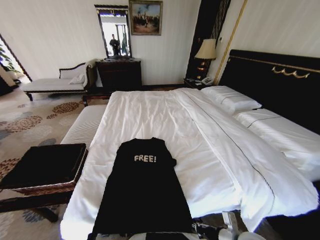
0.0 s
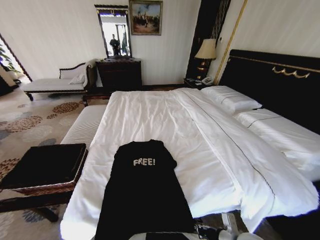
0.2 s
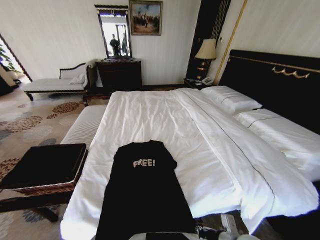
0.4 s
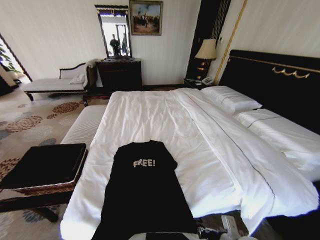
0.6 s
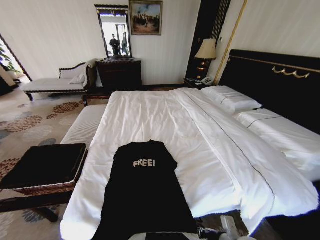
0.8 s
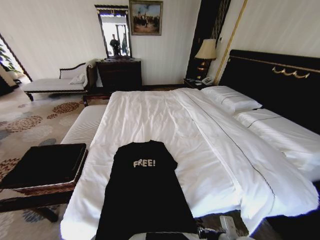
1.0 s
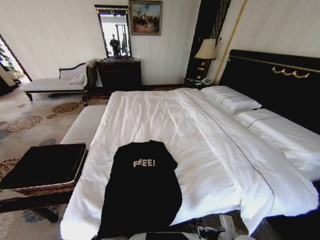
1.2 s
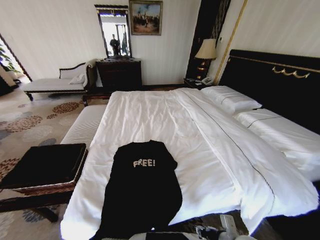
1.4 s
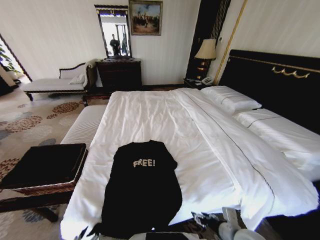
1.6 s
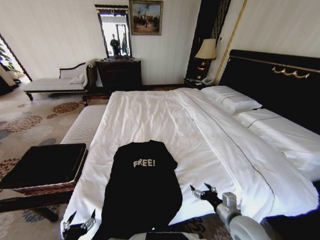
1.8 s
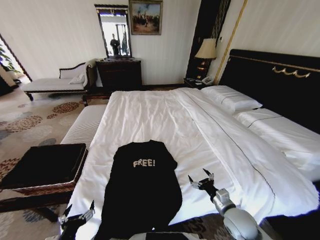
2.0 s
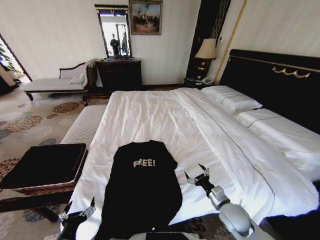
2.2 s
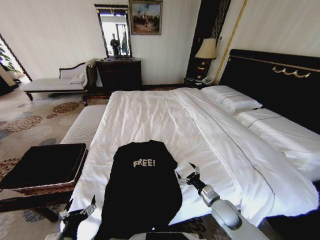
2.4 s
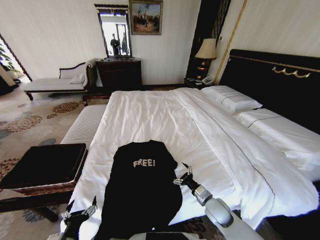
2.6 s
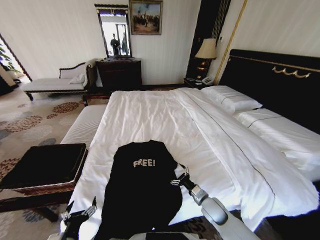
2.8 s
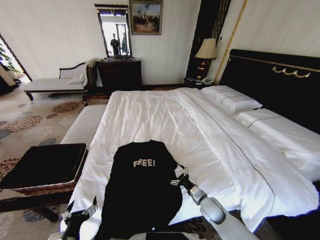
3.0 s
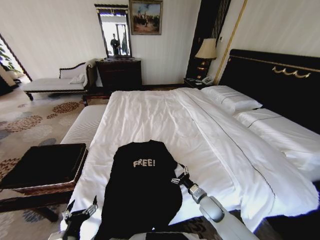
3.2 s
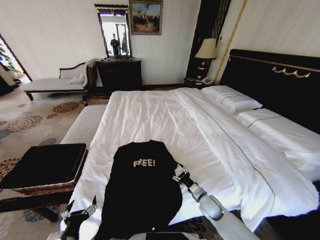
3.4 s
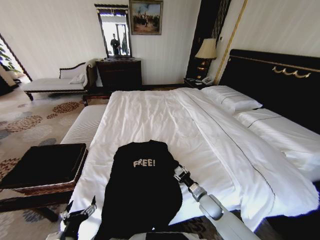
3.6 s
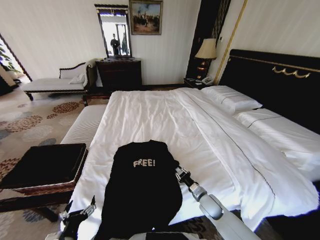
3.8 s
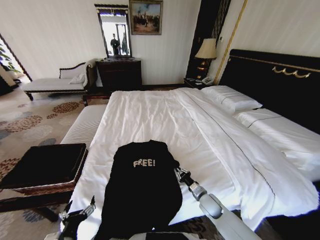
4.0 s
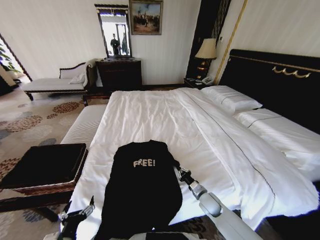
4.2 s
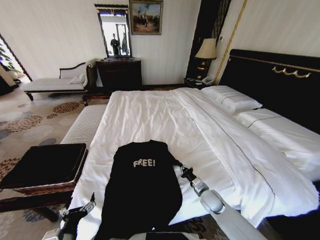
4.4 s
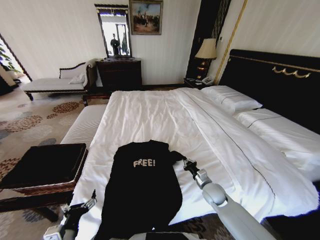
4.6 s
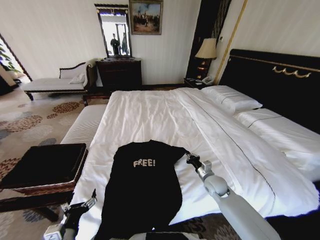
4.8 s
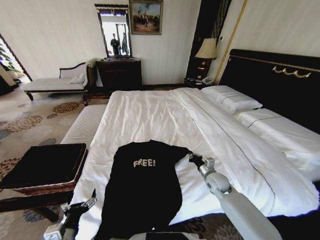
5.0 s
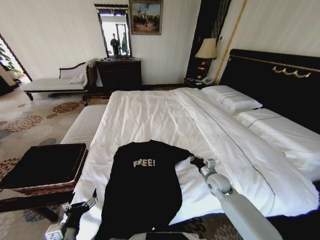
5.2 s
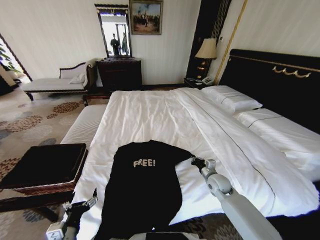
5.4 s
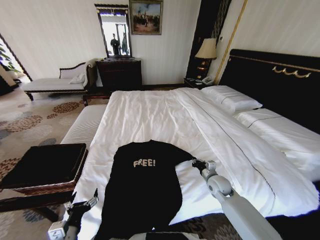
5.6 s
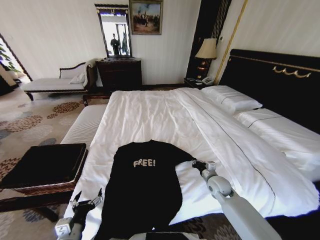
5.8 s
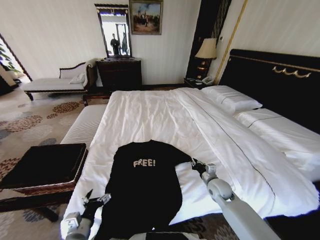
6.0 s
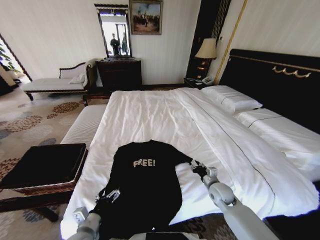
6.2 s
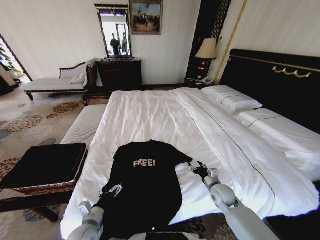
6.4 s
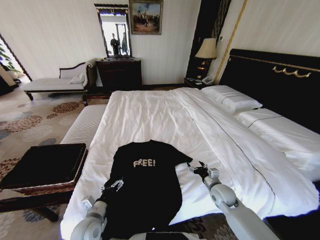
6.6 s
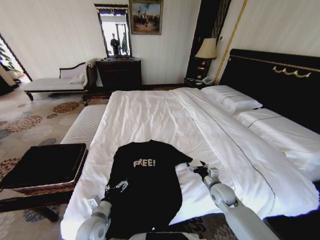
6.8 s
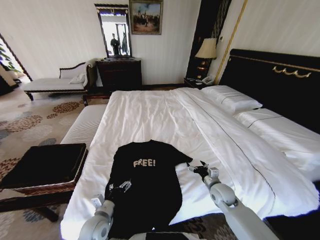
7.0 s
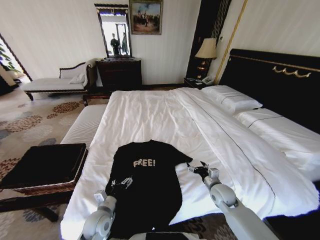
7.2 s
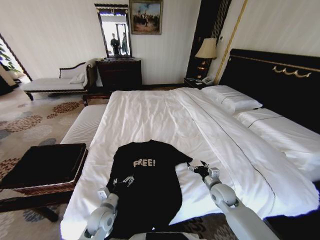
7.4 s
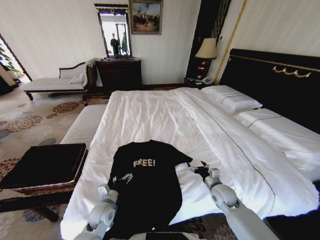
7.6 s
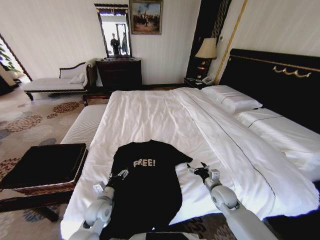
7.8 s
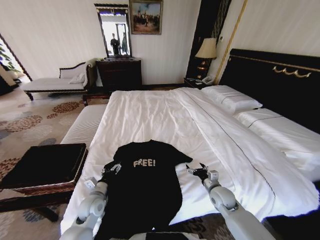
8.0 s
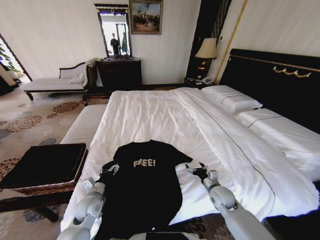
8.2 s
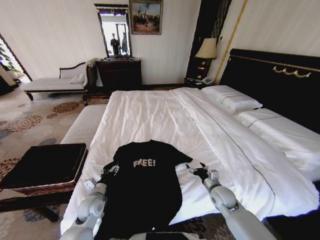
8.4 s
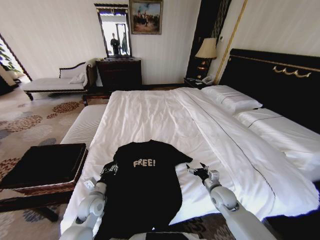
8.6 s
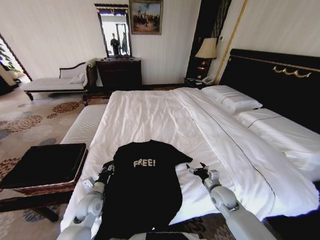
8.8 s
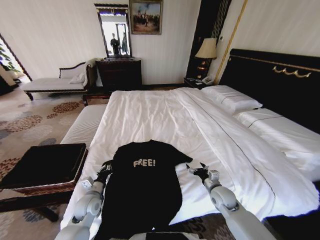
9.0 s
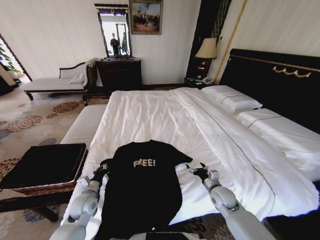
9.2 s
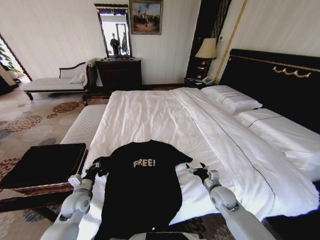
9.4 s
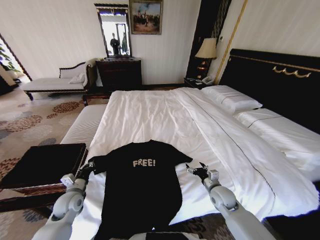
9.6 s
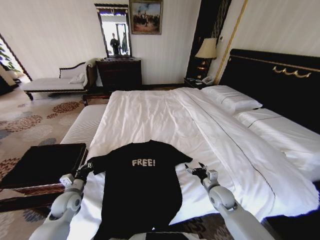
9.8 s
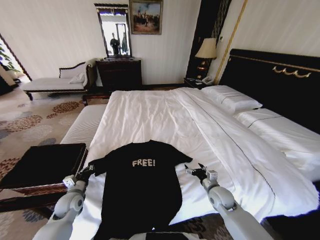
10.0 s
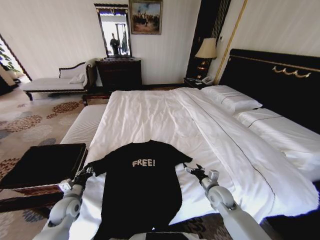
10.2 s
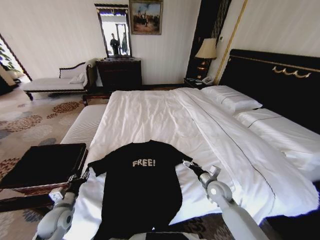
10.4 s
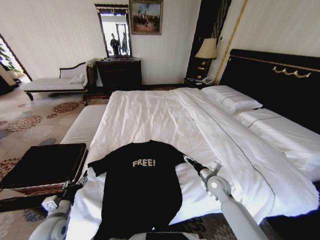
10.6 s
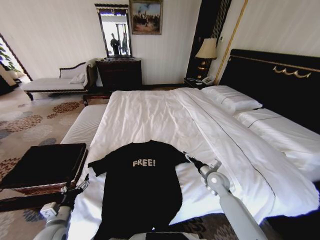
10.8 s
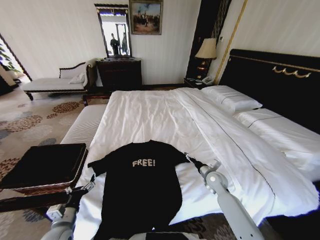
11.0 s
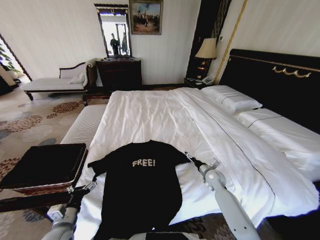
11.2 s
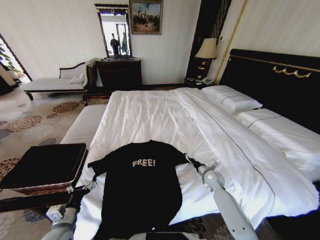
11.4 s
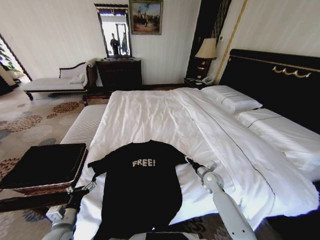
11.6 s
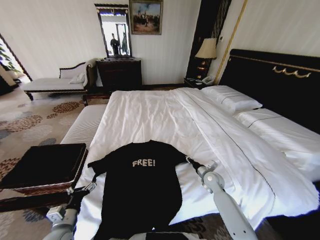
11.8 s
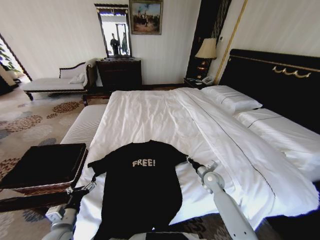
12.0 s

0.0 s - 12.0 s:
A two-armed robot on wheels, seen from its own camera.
Task of the whole recording: Fold the clothes on the bed and place them into the basket.
0.0 s - 1.6 s: The left gripper opens up; the right gripper opens.
1.6 s - 3.0 s: The right gripper travels forward and downward by approximately 15 cm, and opens, while the left gripper heads forward, covering about 5 cm, and opens its fingers.
3.0 s - 4.4 s: The right gripper closes its fingers.
4.4 s - 6.0 s: The left gripper ends up about 5 cm from where it was. The right gripper shifts approximately 5 cm upward.
6.0 s - 7.6 s: The left gripper is displaced forward, downward and to the right by about 15 cm. Meanwhile the right gripper opens its fingers.
7.6 s - 9.0 s: The left gripper goes some 5 cm to the left, and closes up.
9.0 s - 10.4 s: The left gripper shifts about 10 cm to the left.
10.4 s - 12.0 s: The left gripper shifts roughly 5 cm backward, and opens up; the right gripper is displaced forward by about 5 cm, and closes.

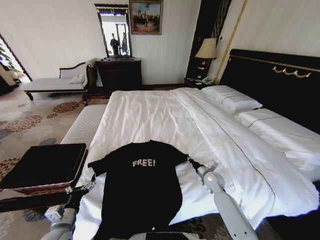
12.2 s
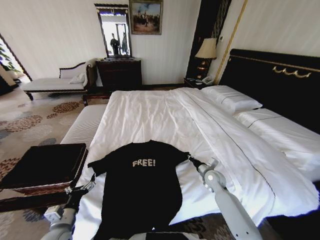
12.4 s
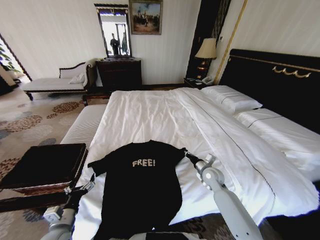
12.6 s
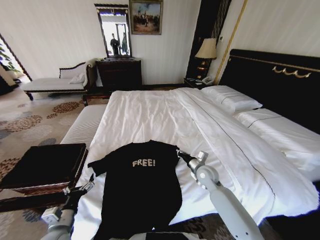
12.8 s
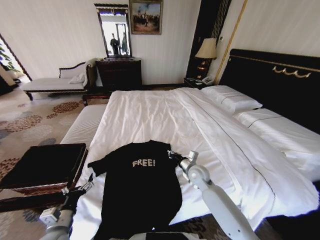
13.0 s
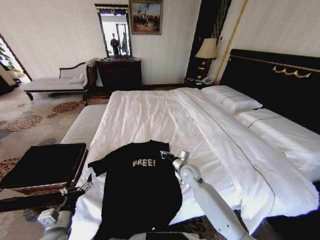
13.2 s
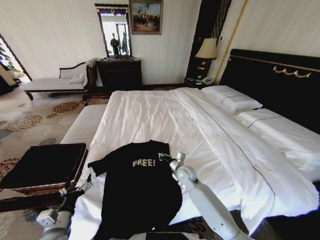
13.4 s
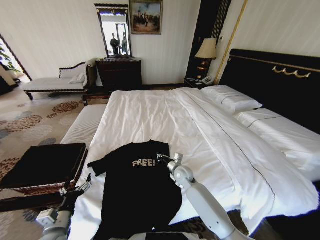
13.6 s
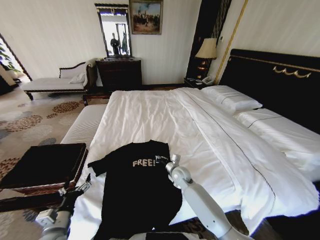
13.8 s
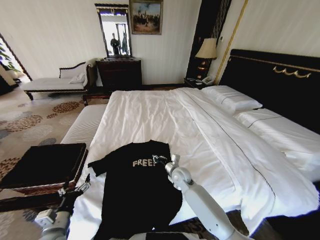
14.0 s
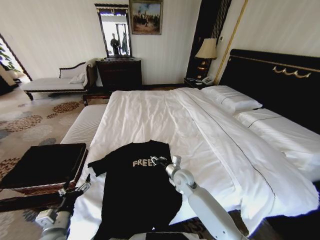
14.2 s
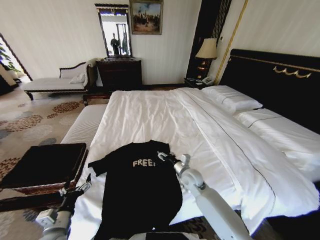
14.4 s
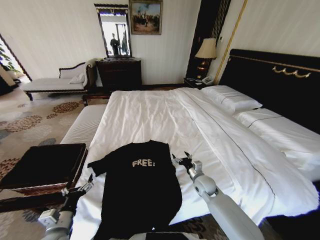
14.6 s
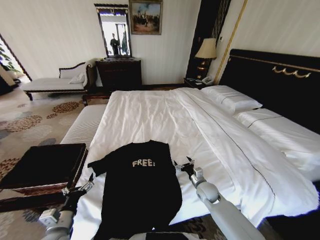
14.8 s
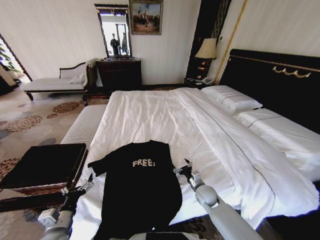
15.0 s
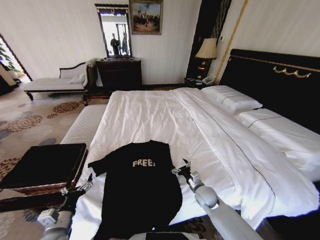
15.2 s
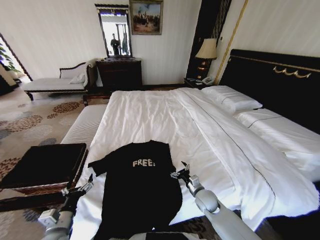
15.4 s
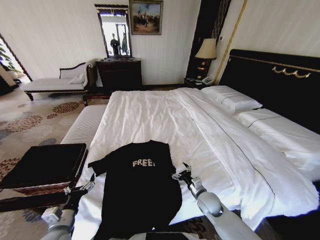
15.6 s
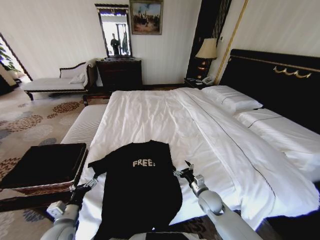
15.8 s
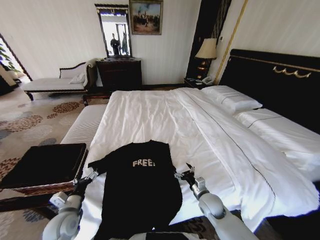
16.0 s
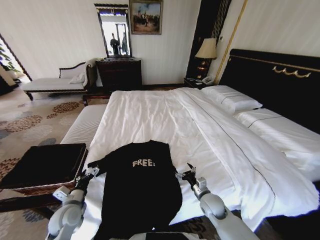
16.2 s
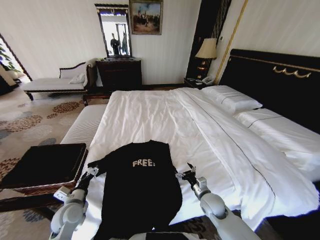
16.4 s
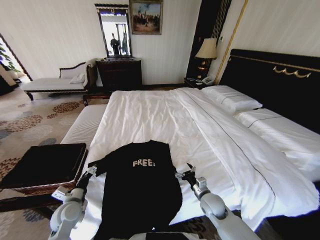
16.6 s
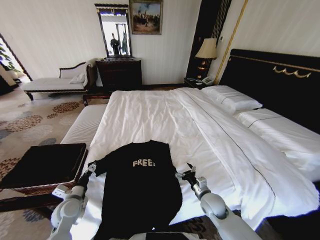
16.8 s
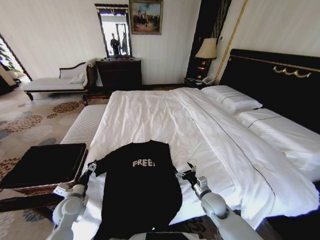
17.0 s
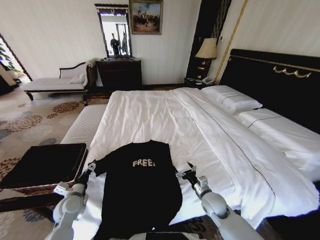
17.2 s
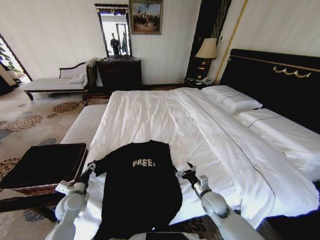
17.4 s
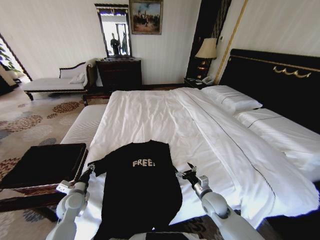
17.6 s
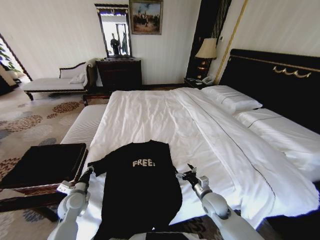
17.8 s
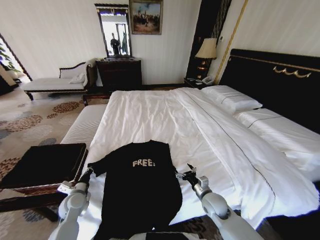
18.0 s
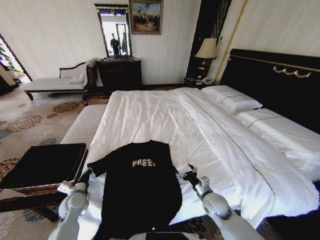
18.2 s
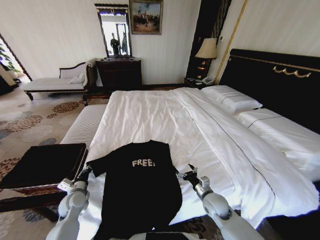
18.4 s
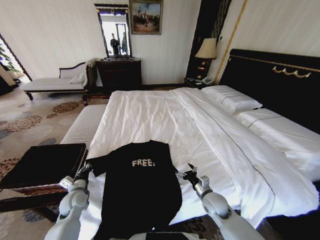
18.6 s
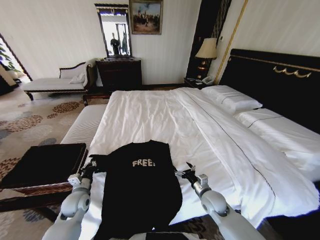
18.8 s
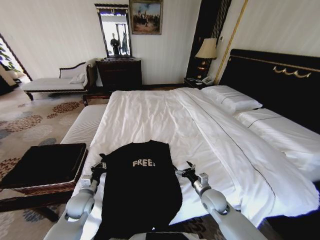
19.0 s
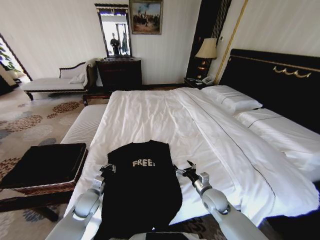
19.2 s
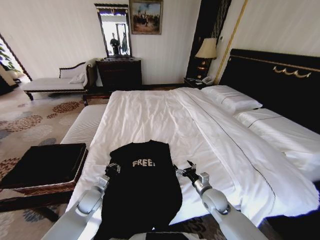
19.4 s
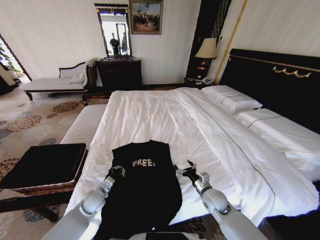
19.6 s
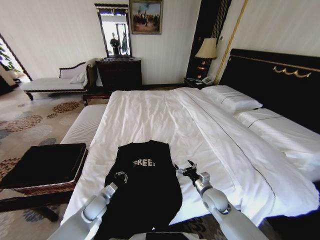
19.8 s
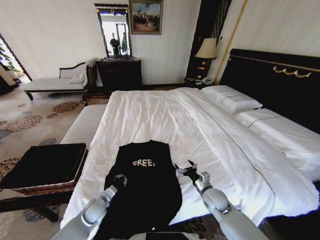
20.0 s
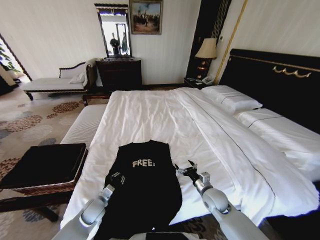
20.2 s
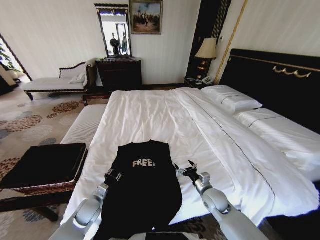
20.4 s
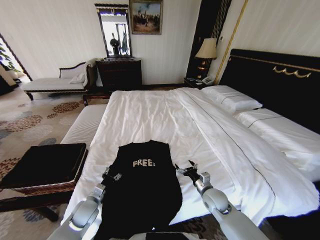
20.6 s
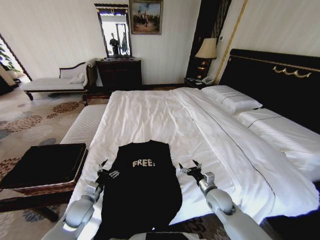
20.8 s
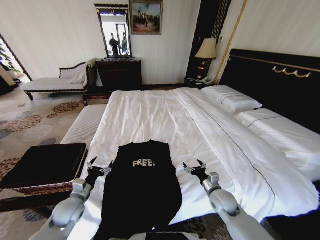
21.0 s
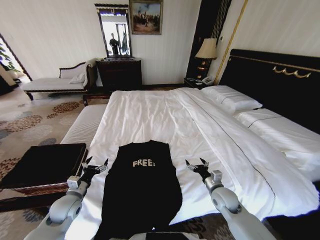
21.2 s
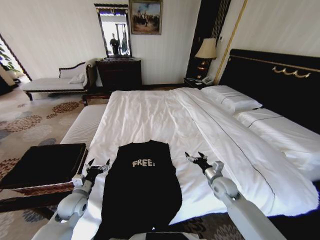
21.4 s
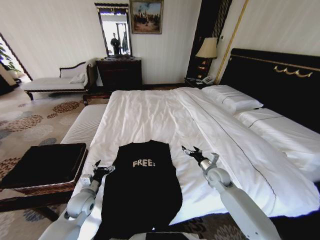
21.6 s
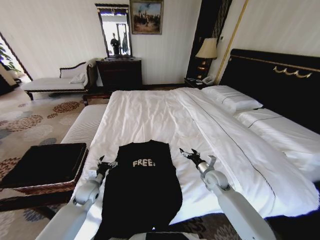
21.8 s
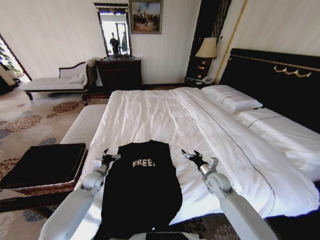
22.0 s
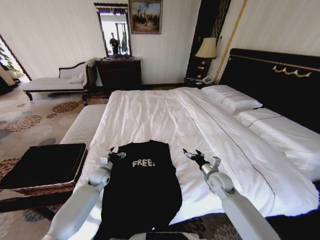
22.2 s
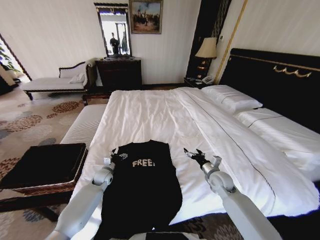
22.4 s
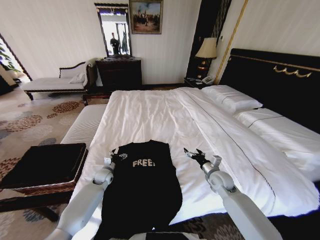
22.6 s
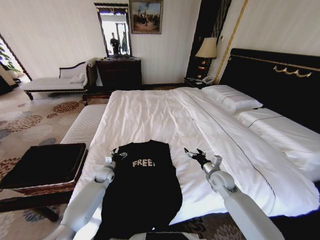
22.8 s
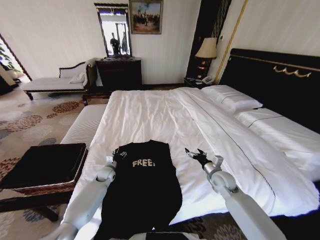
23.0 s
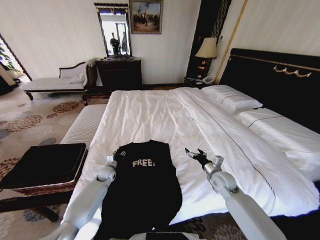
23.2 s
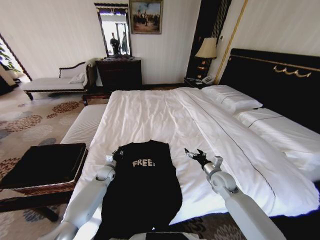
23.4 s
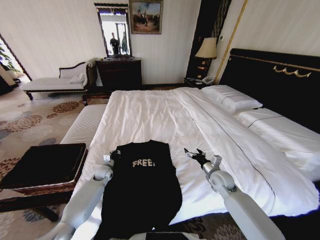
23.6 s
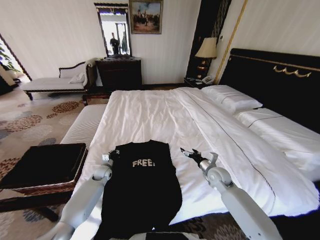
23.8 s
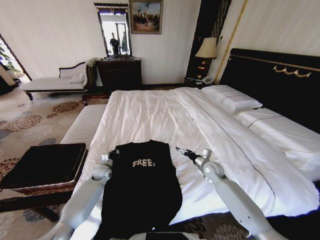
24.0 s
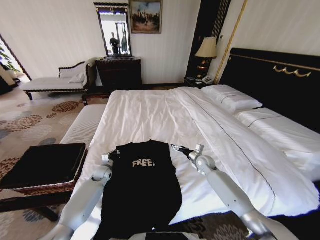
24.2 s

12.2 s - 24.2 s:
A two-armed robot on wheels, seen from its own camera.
Task of the whole recording: Fold the clothes on the bed and place them into the basket.
12.2 s - 13.8 s: The right gripper moves to the left, some 15 cm.
13.8 s - 15.2 s: The right gripper goes some 15 cm to the right and backward, and opens its fingers.
15.2 s - 16.6 s: The left gripper is displaced forward by about 10 cm.
16.6 s - 18.2 s: The left gripper changes place by roughly 5 cm, and closes its fingers.
18.2 s - 19.8 s: The left gripper shifts roughly 10 cm to the right.
19.8 s - 21.2 s: The left gripper is displaced to the left and upward by approximately 10 cm, and opens its fingers.
21.2 s - 22.6 s: The left gripper shifts some 20 cm forward, downward and to the right. The right gripper shifts about 5 cm forward.
22.6 s - 24.2 s: The left gripper closes; the right gripper heads forward, covering some 10 cm.
